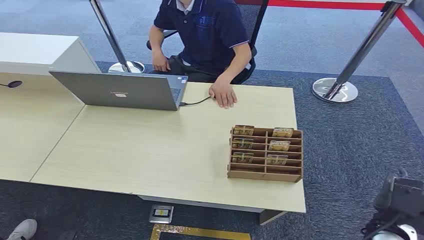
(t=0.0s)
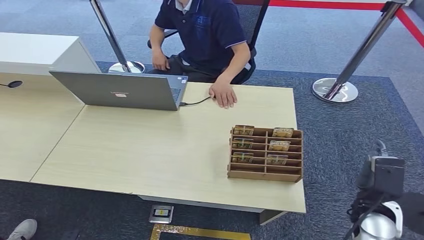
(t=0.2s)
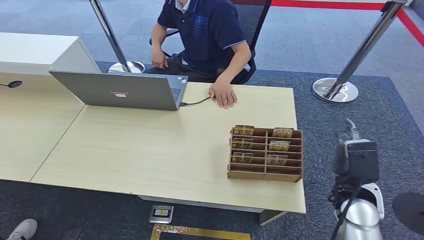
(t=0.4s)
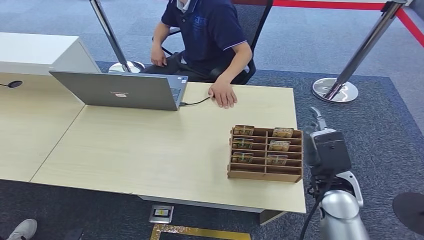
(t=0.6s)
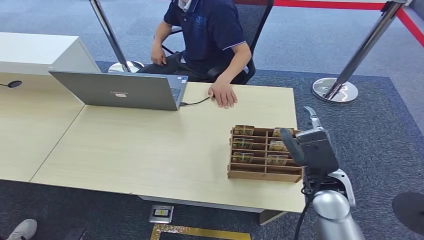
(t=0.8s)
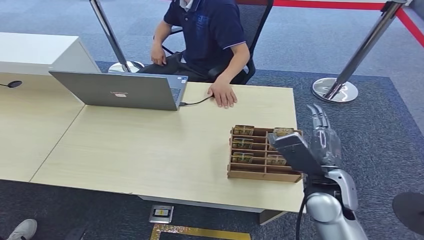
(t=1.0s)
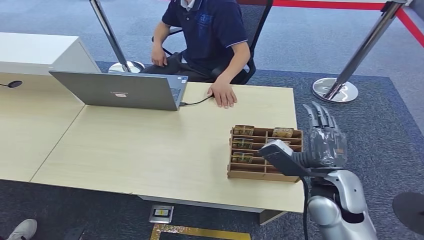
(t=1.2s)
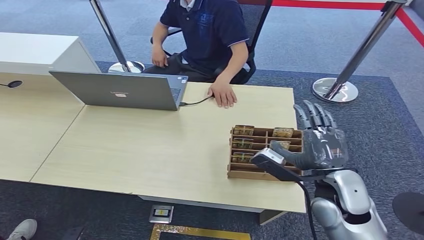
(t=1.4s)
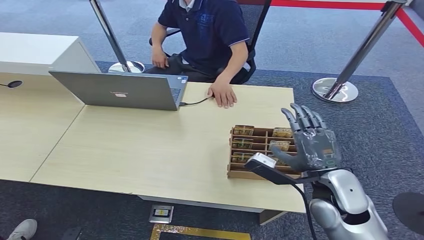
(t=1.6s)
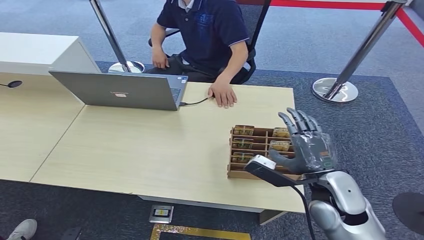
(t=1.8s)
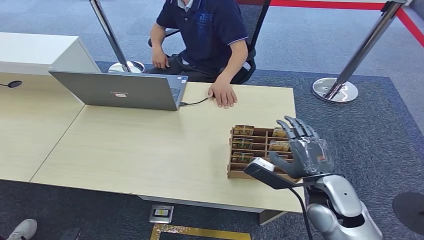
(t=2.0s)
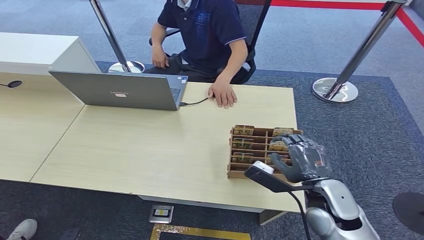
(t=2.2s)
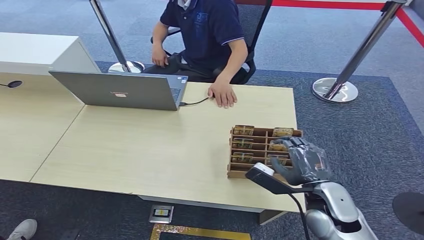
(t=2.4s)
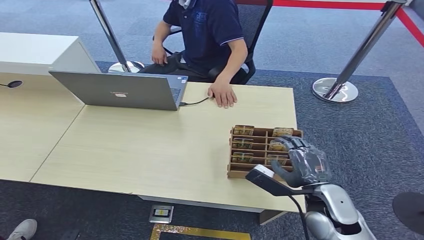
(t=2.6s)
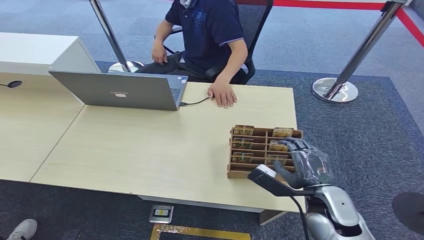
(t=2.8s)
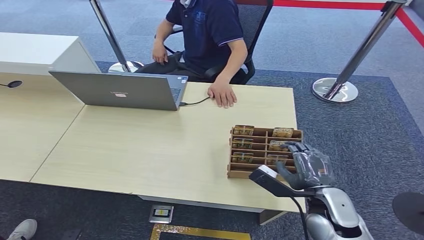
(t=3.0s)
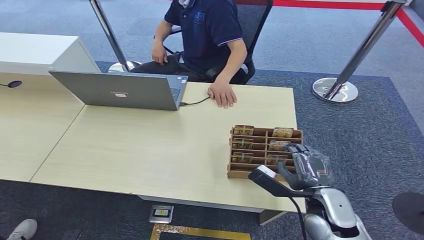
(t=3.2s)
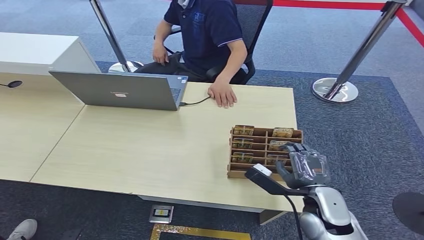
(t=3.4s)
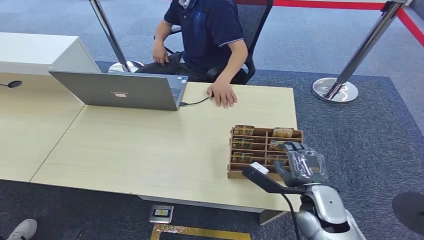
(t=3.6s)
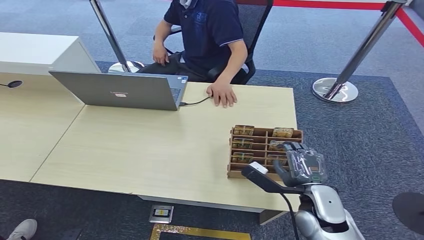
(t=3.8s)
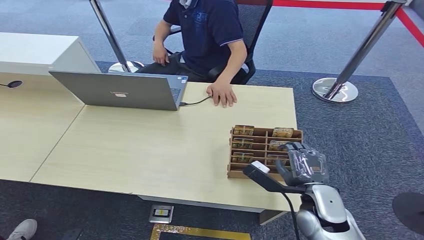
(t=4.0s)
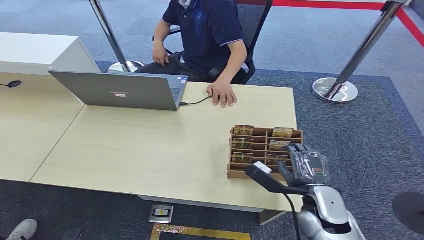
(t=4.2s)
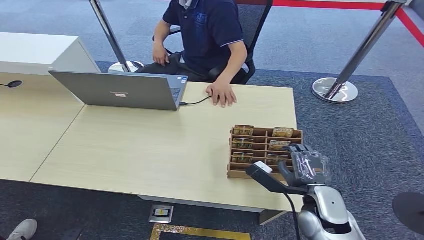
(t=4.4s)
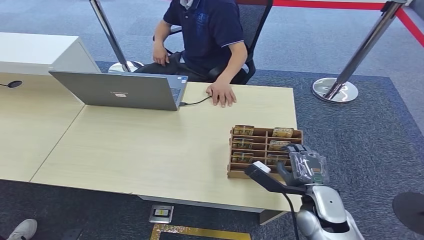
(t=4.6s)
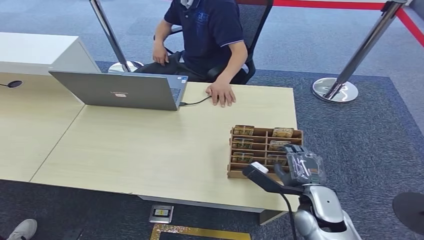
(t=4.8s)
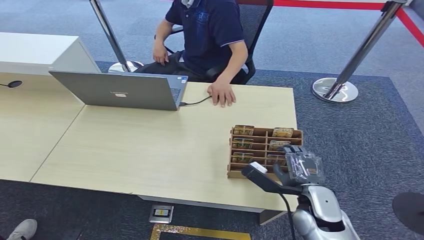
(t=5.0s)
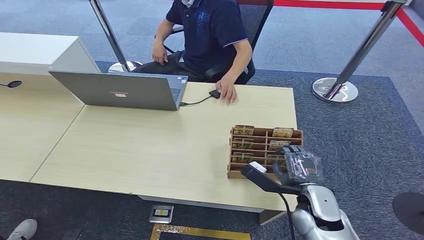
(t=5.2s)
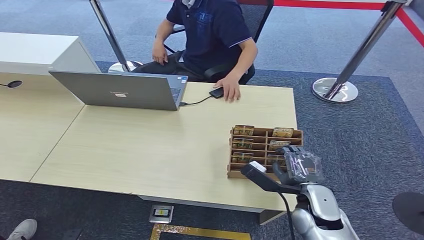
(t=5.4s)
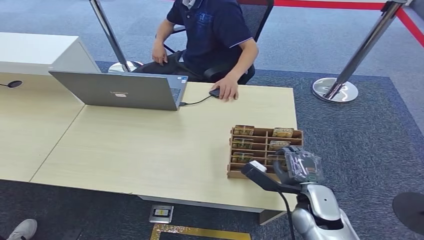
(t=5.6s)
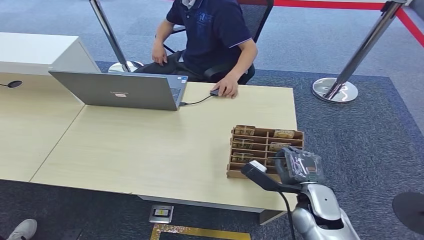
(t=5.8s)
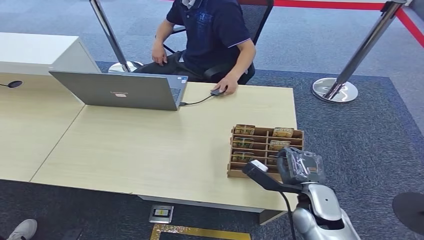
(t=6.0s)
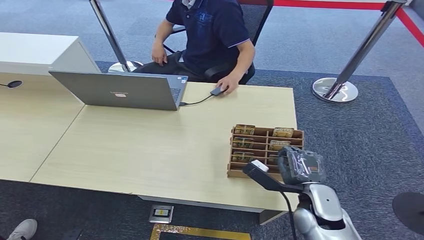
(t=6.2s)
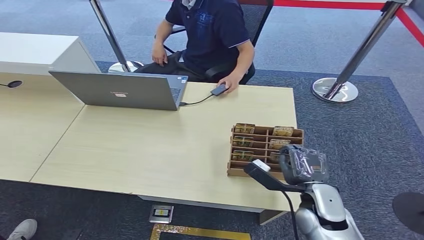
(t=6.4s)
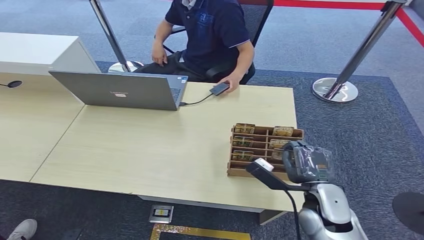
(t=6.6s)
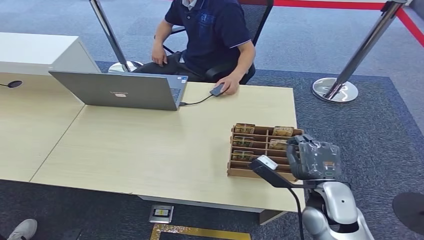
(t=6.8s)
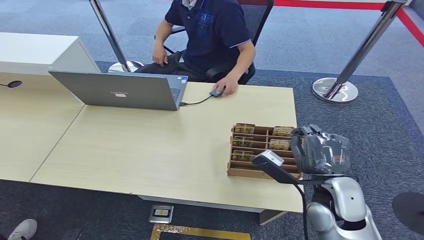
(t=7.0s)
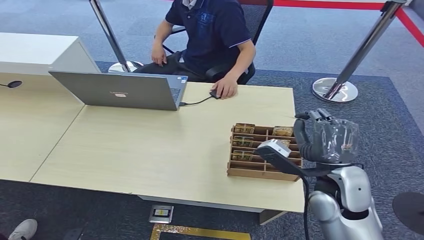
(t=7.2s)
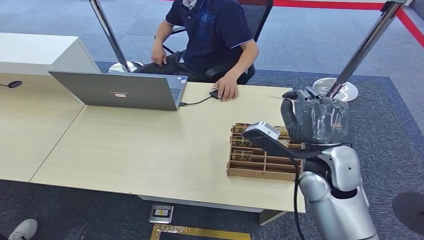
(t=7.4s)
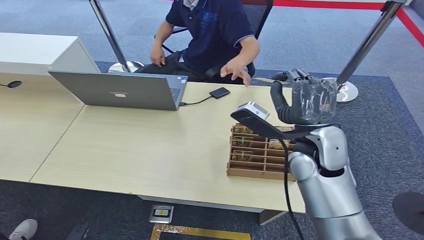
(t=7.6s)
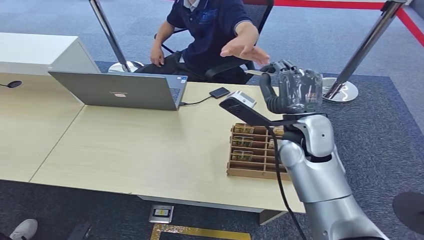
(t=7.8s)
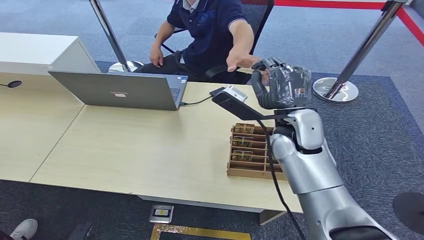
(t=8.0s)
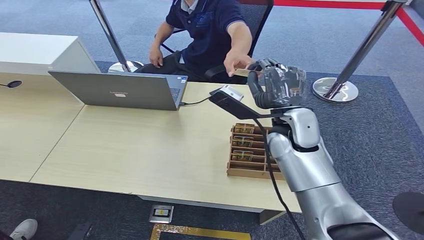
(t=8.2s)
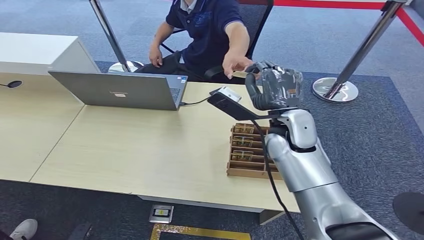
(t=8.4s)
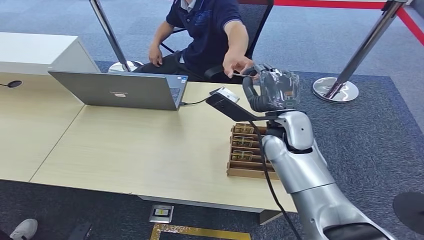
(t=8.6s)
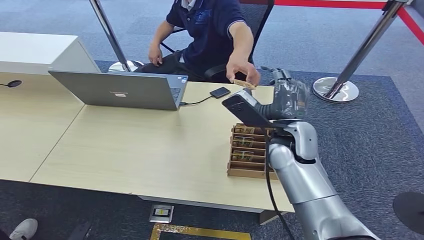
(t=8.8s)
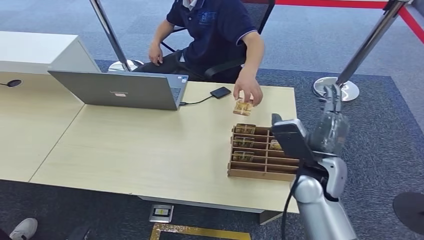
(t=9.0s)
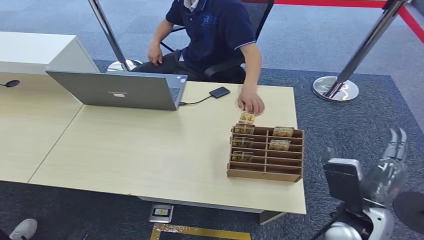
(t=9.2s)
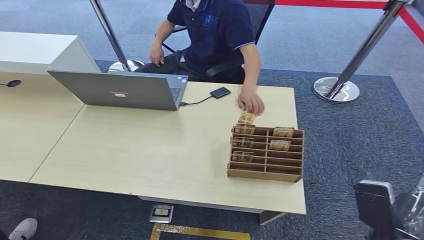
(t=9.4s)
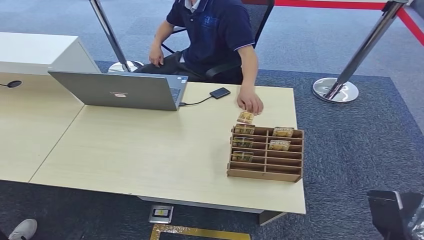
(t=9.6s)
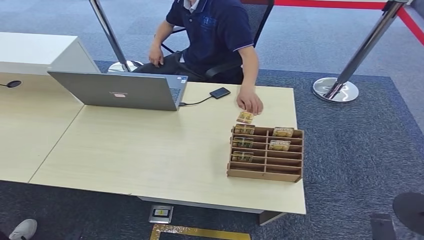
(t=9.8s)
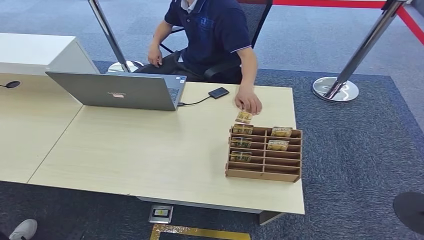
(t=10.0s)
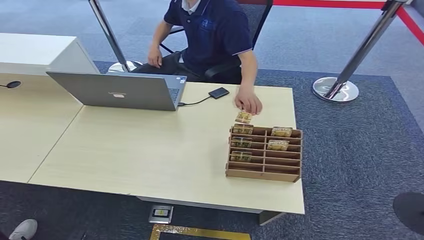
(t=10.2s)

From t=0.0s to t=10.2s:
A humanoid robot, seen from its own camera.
Step, from t=0.0s to t=6.2s: Pick up the key card from the card box.
Step, from t=6.4s to t=10.0s: Hand the key card to the target.
From t=1.4s to t=3.0s: The right hand is displaced downward by approximately 5 cm.
From t=3.0s to t=4.4s: The hands move only a little.
From t=4.4s to t=5.8s: Both hands stay put.
From t=5.8s to t=7.2s: The right hand goes roughly 10 cm upward.
From t=7.2s to t=8.8s: The right hand shifts some 10 cm forward and to the left.
From t=8.8s to t=10.2s: The right hand goes some 50 cm backward, downward and to the right.

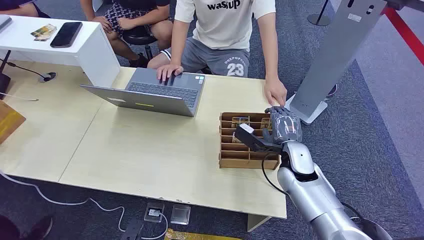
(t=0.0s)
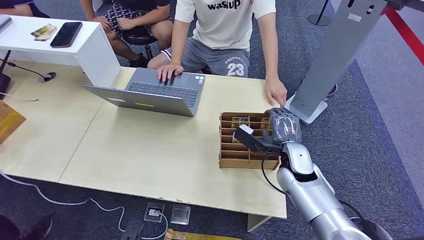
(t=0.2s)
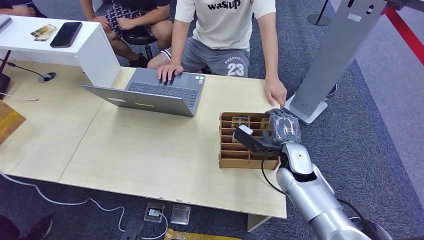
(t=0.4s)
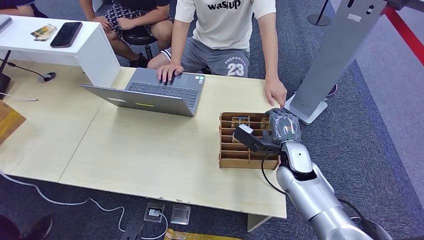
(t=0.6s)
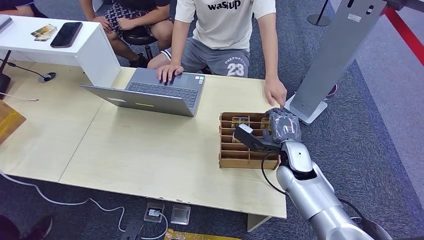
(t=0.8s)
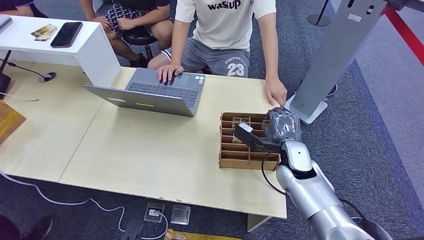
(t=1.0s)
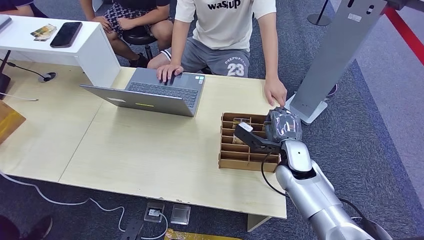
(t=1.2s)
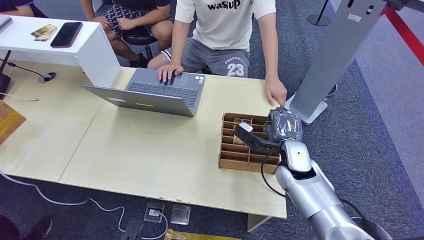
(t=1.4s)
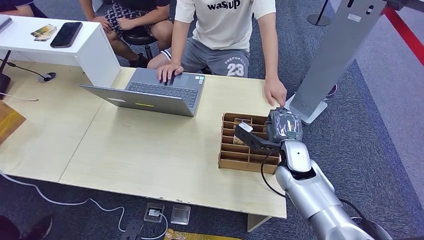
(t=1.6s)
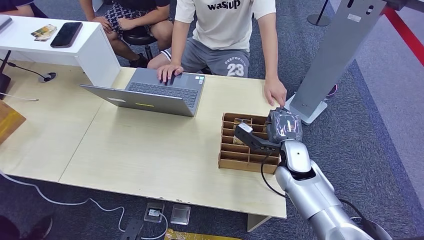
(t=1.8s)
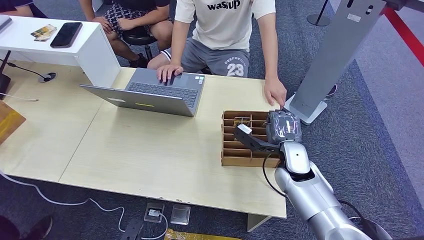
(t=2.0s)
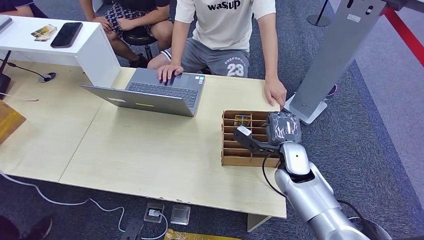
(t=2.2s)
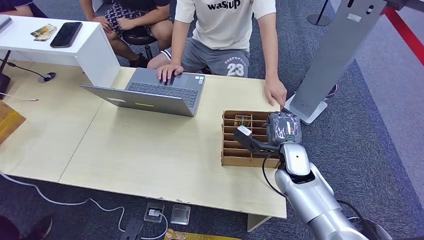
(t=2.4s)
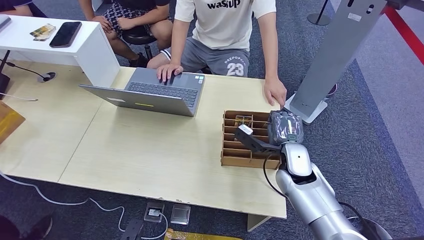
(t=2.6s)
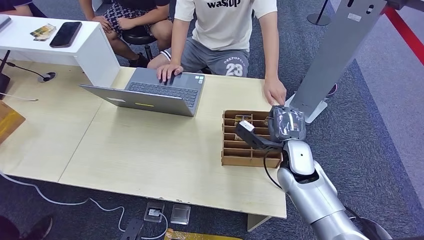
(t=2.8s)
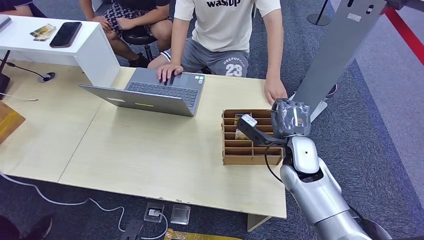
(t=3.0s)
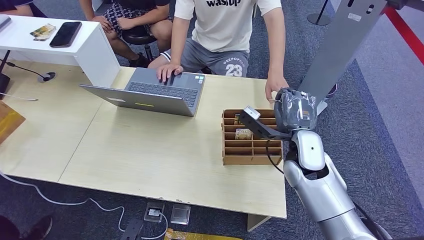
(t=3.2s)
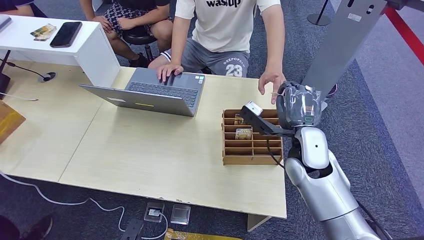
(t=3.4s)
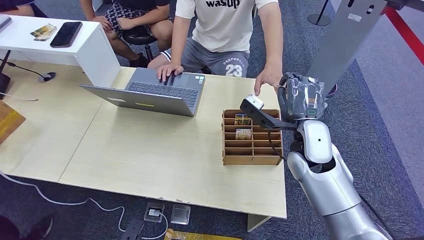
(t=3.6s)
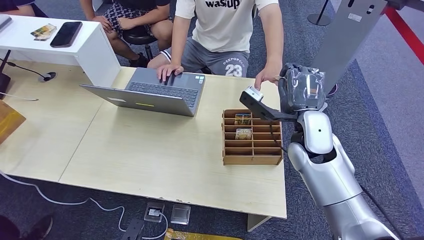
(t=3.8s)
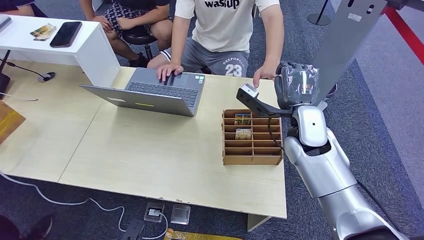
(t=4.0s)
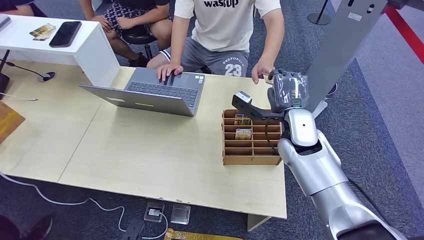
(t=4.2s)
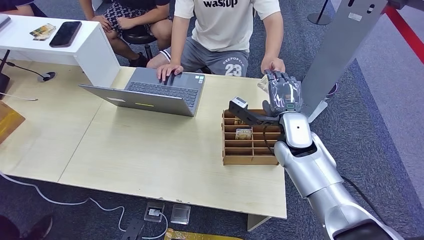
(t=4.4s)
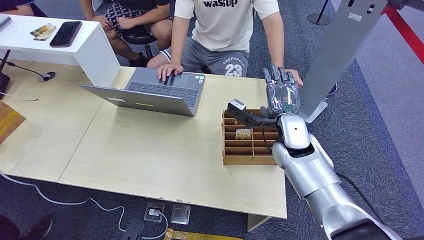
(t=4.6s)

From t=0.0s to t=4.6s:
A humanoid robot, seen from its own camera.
Step, from t=0.0s to t=3.2s: Pick up the key card from the card box.
Step, from t=3.6s to t=4.6s: Hand the key card to the target.
From t=1.6s to t=3.0s: The hands make only small movements.
From t=3.0s to t=4.6s: The right hand changes place by some 5 cm.
